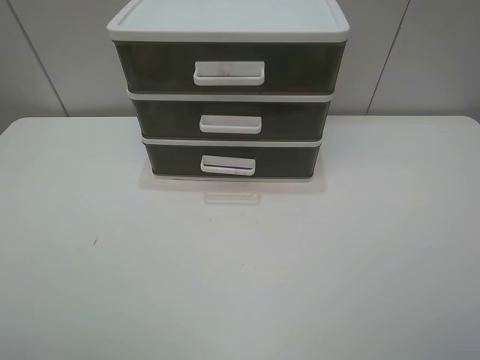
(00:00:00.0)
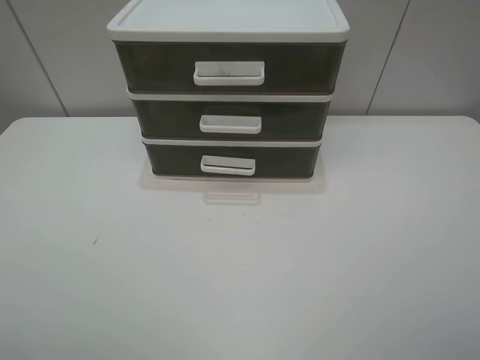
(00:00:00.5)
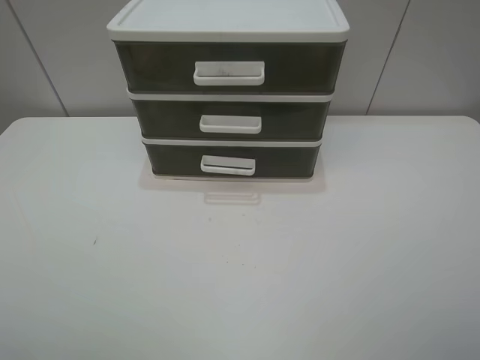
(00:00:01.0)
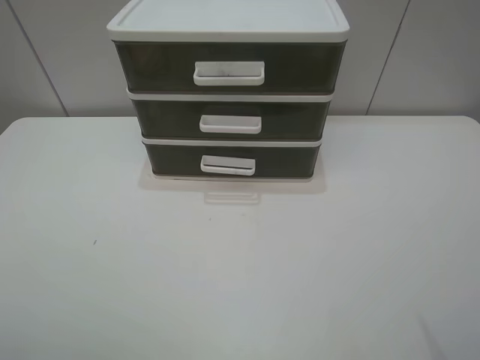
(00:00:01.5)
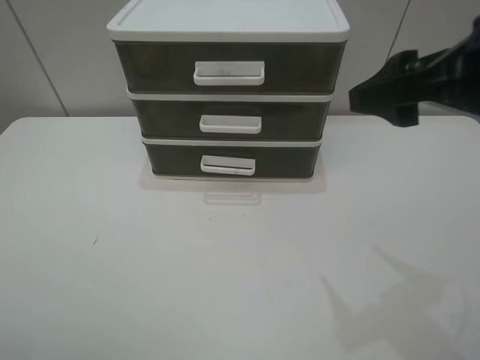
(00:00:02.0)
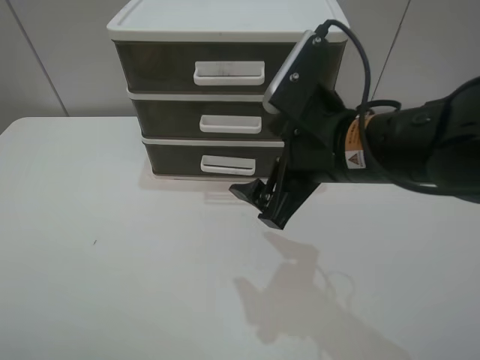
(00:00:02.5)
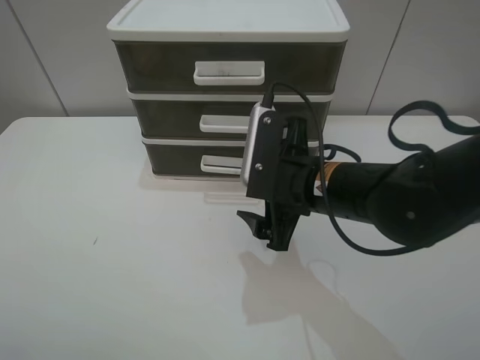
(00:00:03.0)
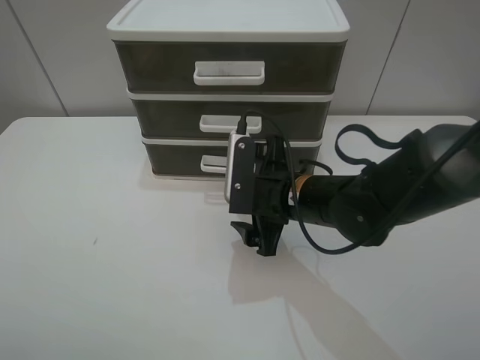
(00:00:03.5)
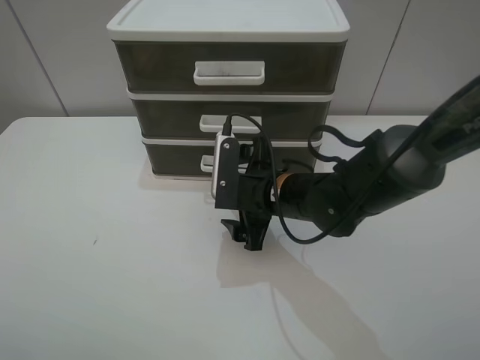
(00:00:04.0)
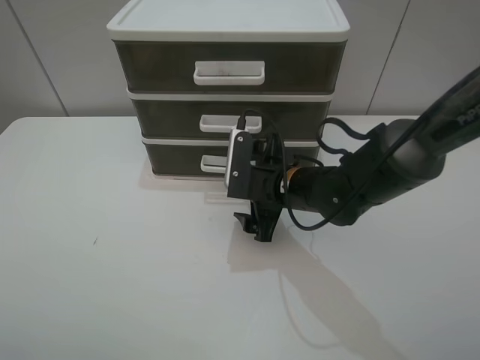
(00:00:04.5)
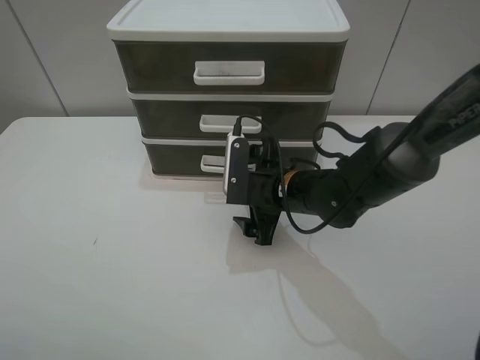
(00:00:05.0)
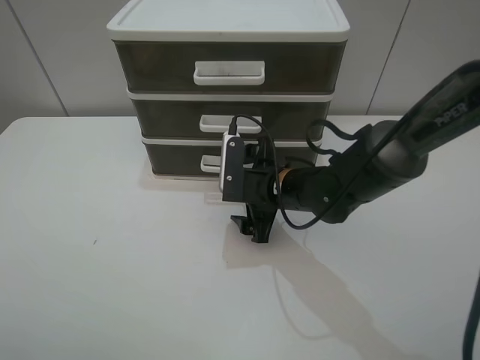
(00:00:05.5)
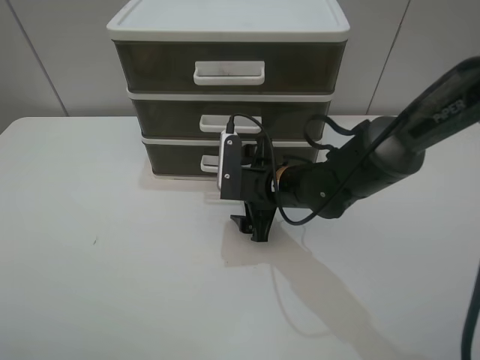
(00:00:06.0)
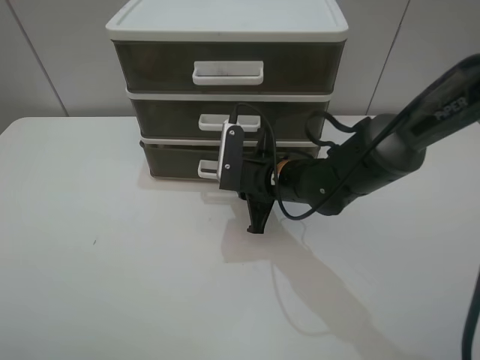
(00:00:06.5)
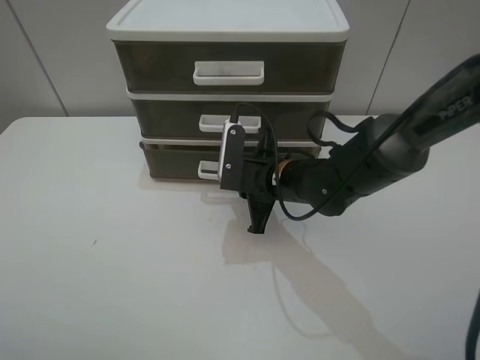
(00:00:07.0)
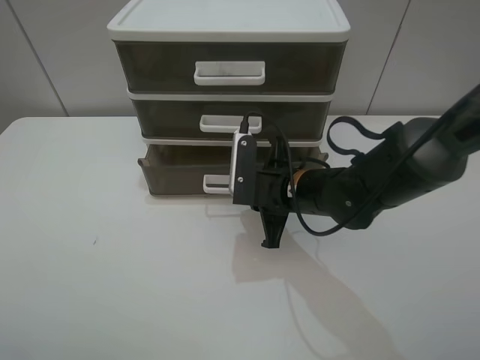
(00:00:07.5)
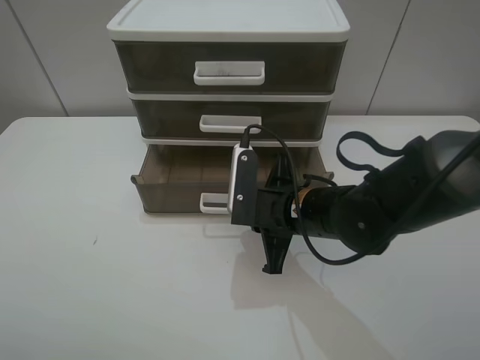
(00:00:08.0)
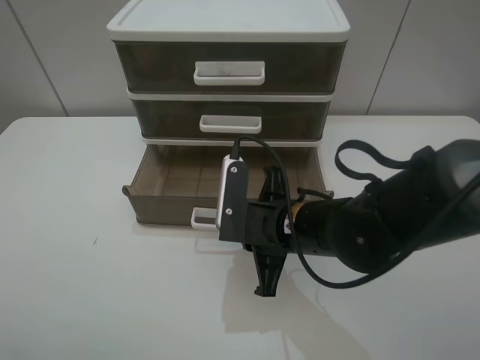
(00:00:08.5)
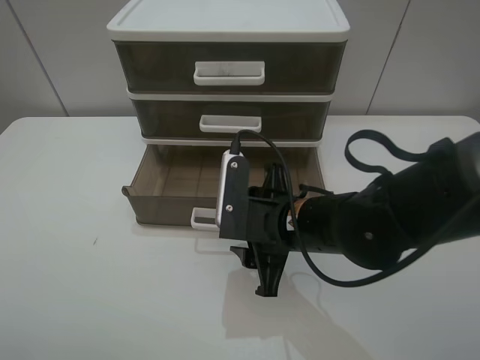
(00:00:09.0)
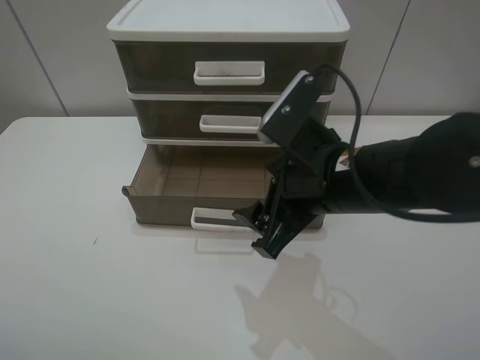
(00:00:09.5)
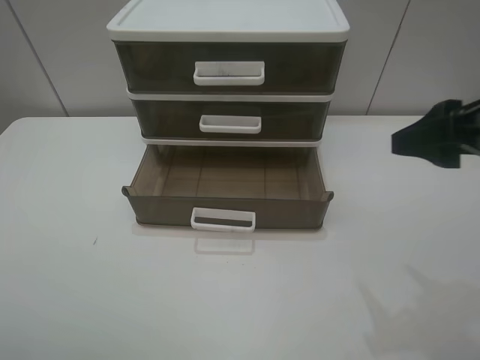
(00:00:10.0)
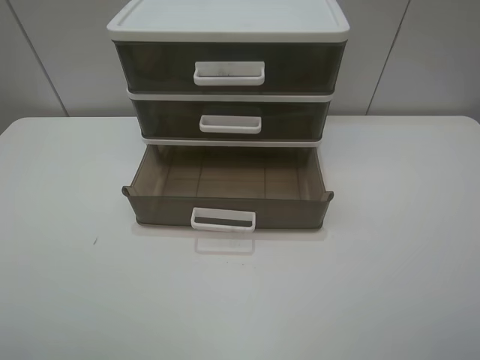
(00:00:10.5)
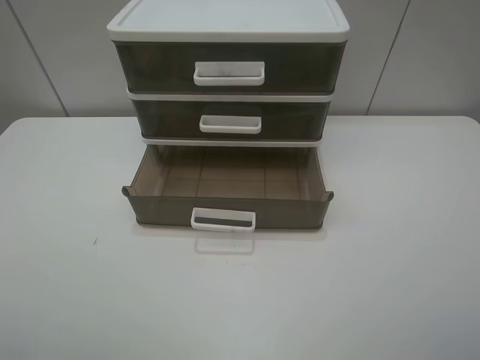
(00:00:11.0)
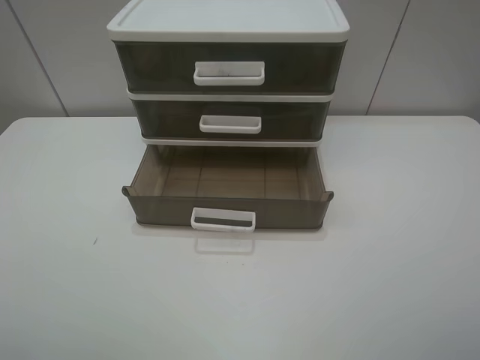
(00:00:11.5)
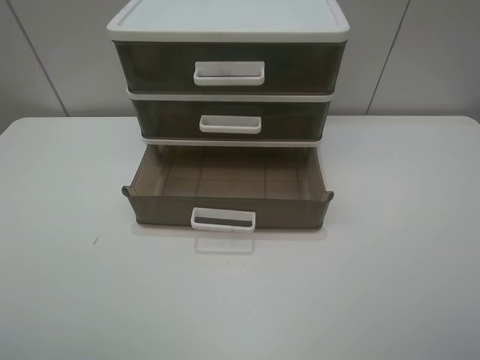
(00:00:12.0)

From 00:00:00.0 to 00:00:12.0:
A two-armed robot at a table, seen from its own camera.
Task of the whole recording: open the bottom drawer.
Step, from 00:00:00.0 to 00:00:06.5: Grab the bottom drawer with the right gripper.
Step, from 00:00:07.0 to 00:00:09.0: Pull open the drawer with the right gripper.
From 00:00:00.0 to 00:00:02.0: The right gripper is displaced forward and to the left by about 20 cm.
From 00:00:02.0 to 00:00:04.0: The right gripper shifts about 25 cm downward and to the left.
From 00:00:04.0 to 00:00:06.0: The grippers move only a little.
From 00:00:06.0 to 00:00:08.0: The right gripper is displaced backward by about 5 cm, and closes up.
From 00:00:08.0 to 00:00:10.0: The right gripper goes some 25 cm upward and to the right, and opens up.
From 00:00:10.0 to 00:00:12.0: The right gripper goes approximately 15 cm backward.
